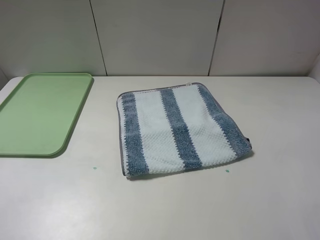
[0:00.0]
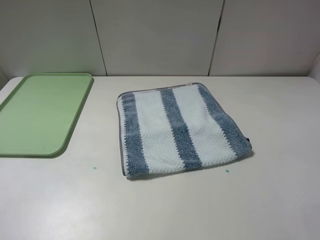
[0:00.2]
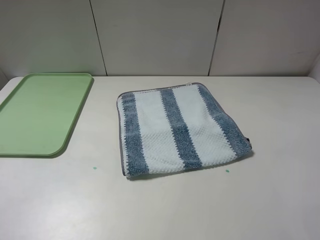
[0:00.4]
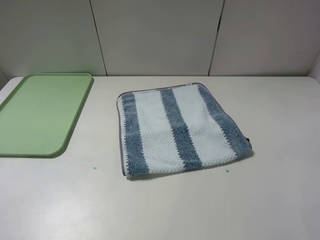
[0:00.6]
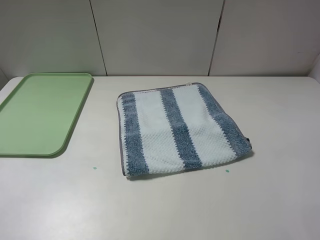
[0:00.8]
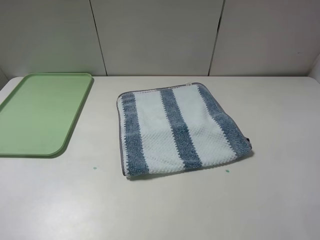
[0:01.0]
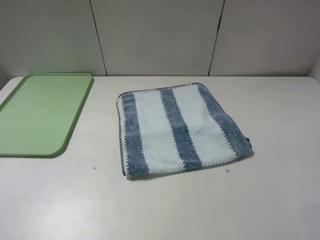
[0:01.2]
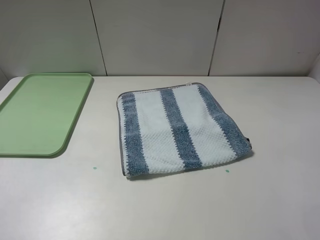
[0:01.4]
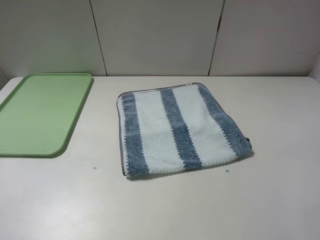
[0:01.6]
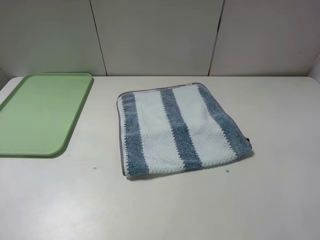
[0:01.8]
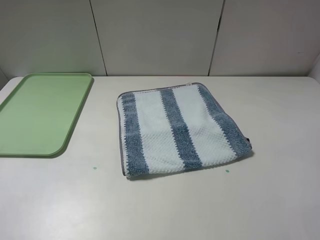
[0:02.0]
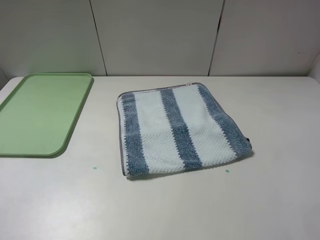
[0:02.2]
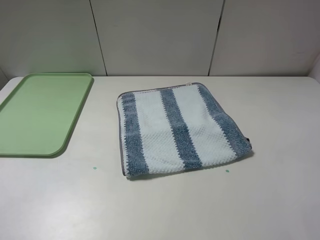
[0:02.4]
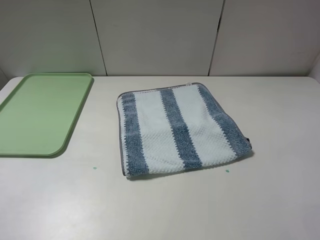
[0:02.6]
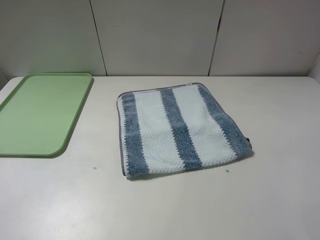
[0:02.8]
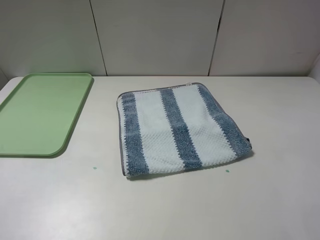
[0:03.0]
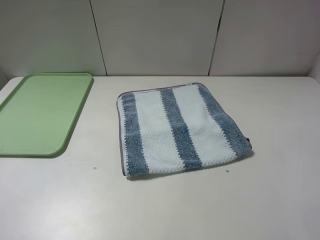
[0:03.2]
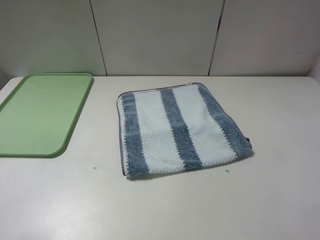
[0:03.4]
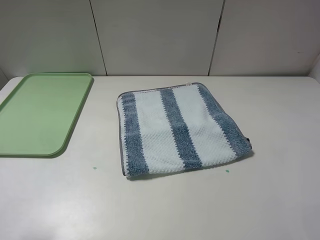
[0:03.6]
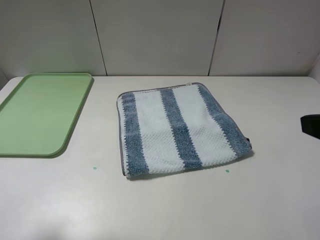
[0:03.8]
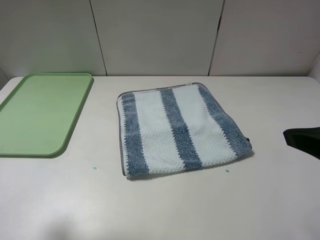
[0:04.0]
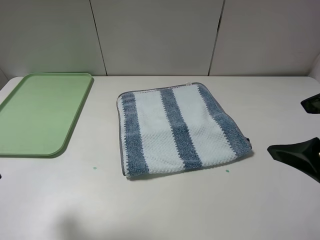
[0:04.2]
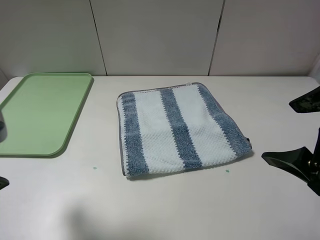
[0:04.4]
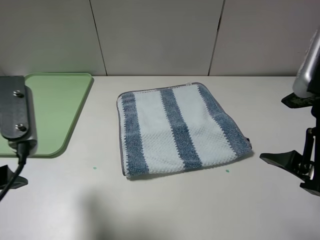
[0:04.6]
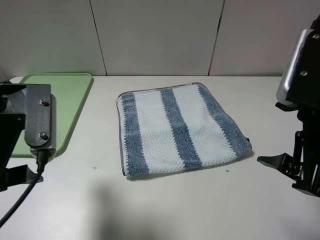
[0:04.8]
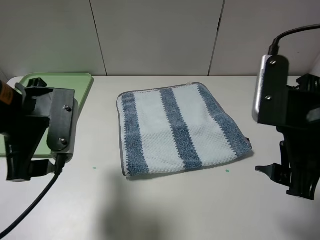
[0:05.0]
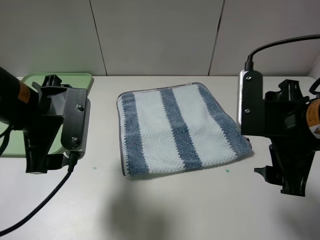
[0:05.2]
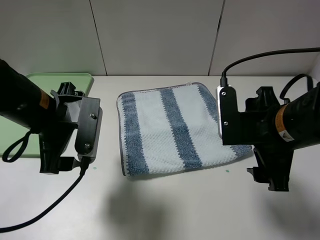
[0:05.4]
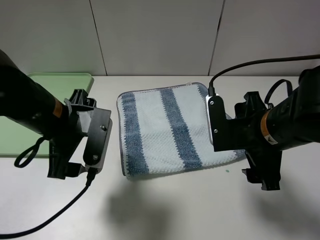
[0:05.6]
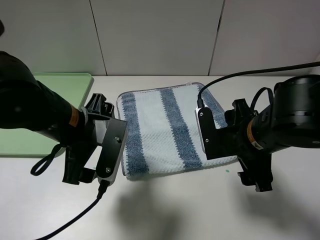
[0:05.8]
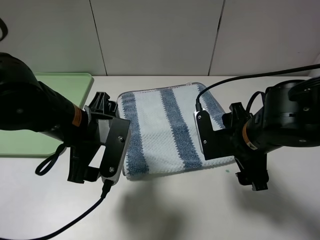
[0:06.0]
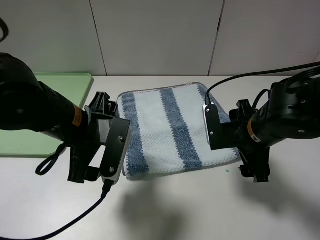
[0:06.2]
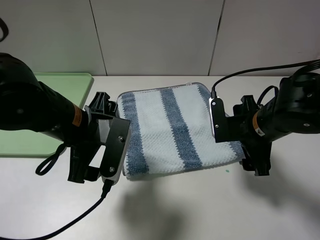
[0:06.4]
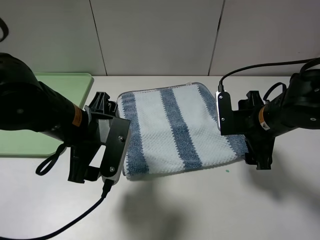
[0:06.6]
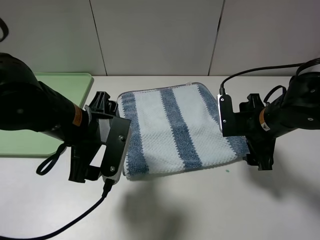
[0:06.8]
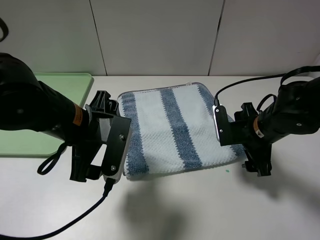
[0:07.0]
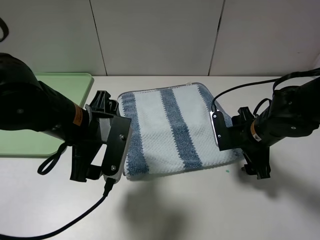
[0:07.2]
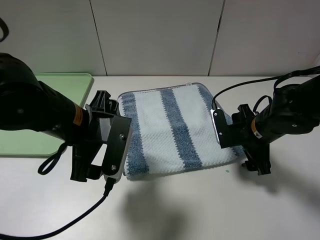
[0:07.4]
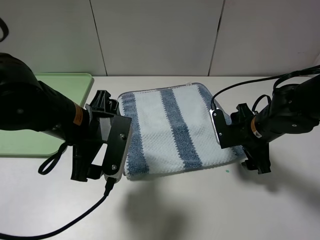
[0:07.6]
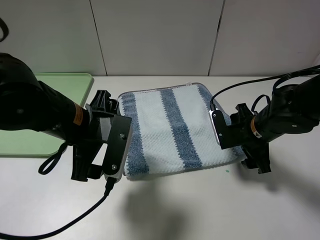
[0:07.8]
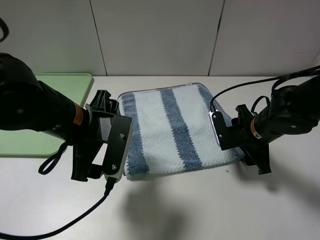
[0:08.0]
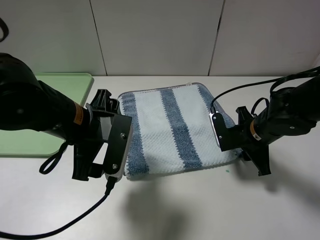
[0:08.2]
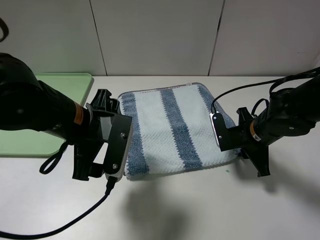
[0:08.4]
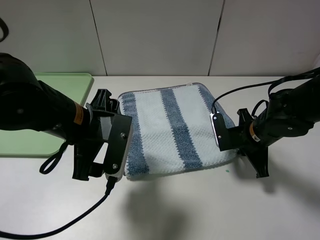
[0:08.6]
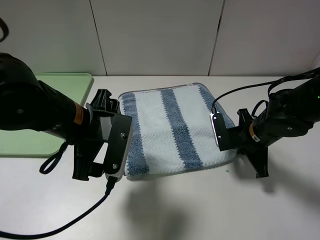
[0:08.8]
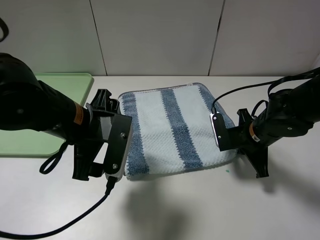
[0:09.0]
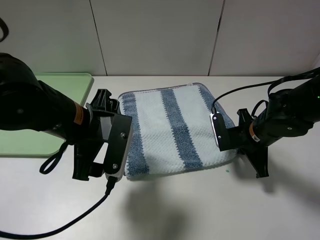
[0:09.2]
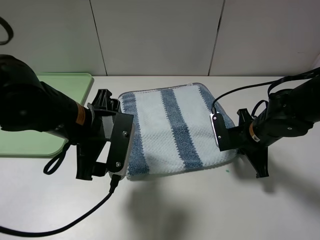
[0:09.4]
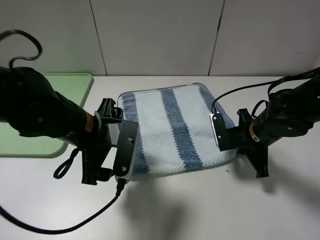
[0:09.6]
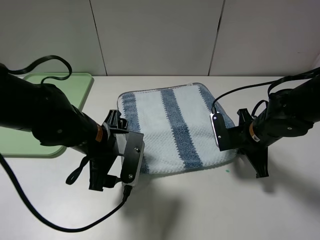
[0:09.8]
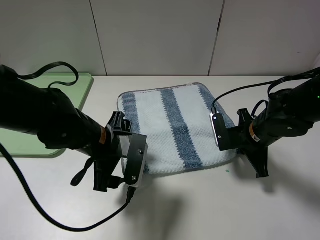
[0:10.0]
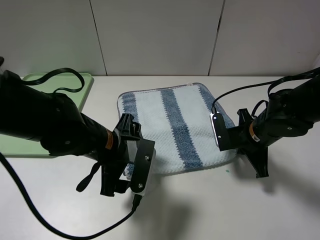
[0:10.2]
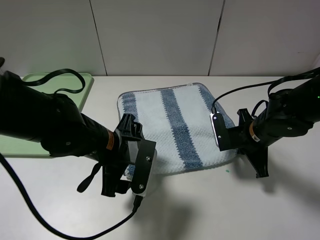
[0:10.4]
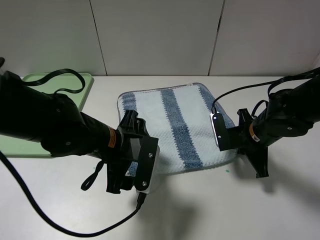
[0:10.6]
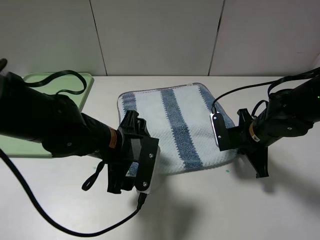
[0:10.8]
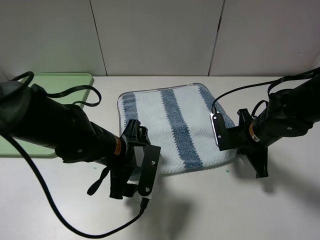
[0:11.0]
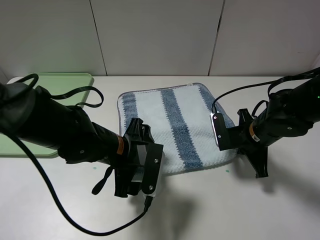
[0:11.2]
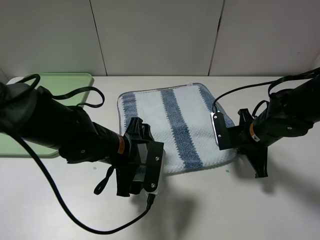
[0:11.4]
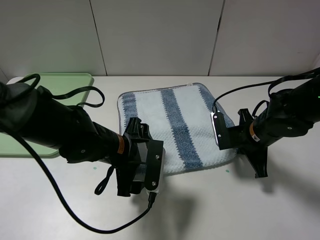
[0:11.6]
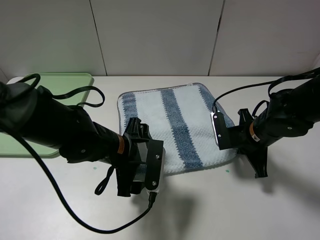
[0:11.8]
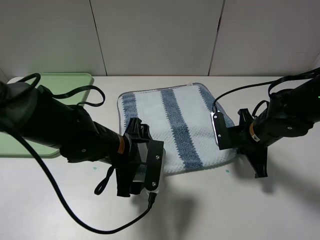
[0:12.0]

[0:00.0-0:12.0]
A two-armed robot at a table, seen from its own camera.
Step, 0:00.0 to 0:09.4: Grasp the blue white towel with the right gripper.
0:00.0 to 0:01.6: Both grippers stay put.
0:03.0 to 0:04.4: The left gripper travels forward and to the right by about 15 cm, while the right gripper is displaced forward and to the left by roughly 10 cm.
0:04.4 to 0:06.0: The left gripper heads to the right, downward and forward, covering roughly 15 cm; the right gripper travels downward, forward and to the left by about 15 cm.
0:06.0 to 0:07.6: The right gripper moves forward, downward and to the right, some 10 cm.
0:07.6 to 0:09.0: The right gripper closes.
0:09.0 to 0:10.4: The left gripper heads downward, covering roughly 5 cm.
0:10.4 to 0:12.0: There are only small adjustments of the grippers.

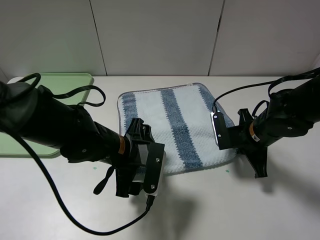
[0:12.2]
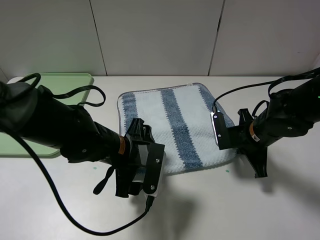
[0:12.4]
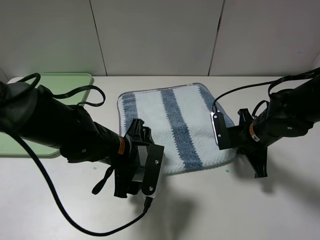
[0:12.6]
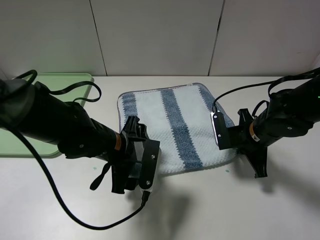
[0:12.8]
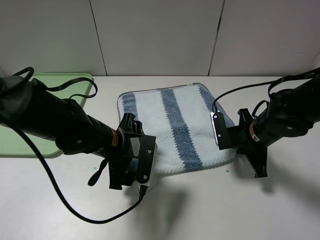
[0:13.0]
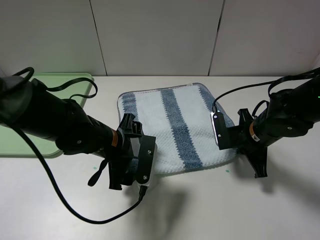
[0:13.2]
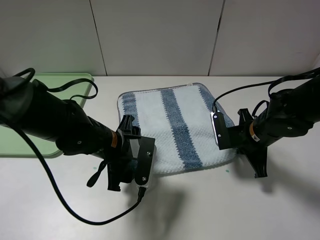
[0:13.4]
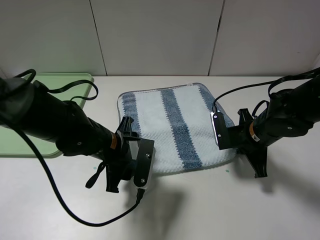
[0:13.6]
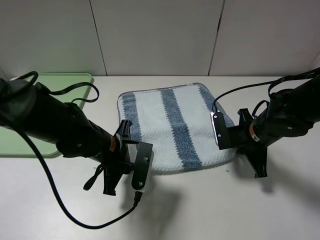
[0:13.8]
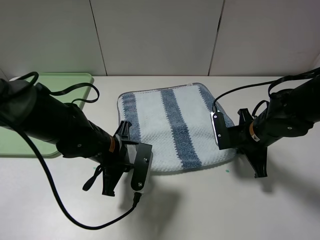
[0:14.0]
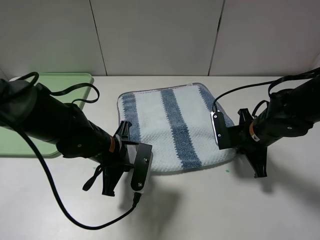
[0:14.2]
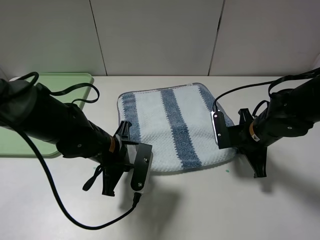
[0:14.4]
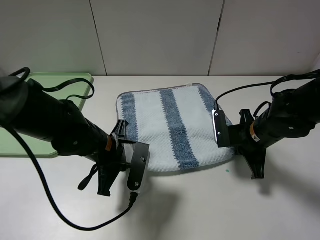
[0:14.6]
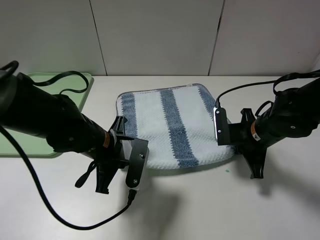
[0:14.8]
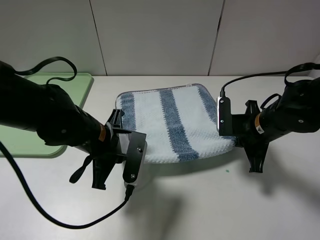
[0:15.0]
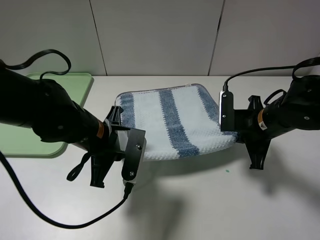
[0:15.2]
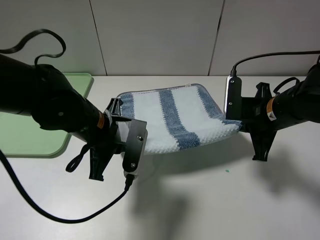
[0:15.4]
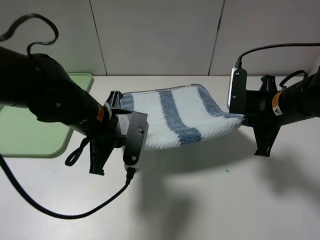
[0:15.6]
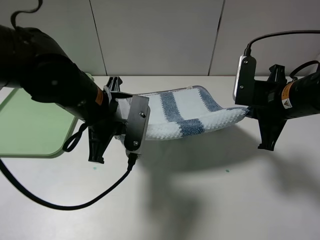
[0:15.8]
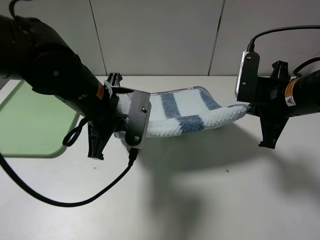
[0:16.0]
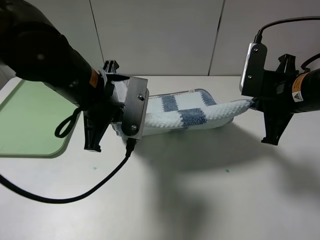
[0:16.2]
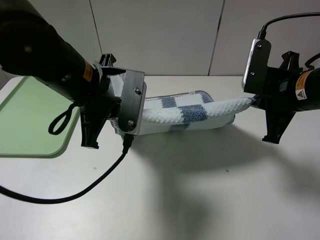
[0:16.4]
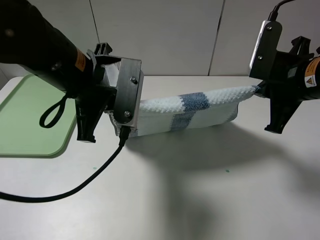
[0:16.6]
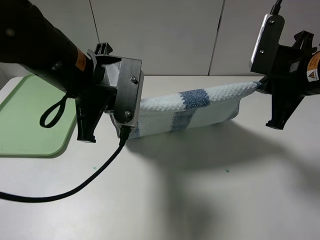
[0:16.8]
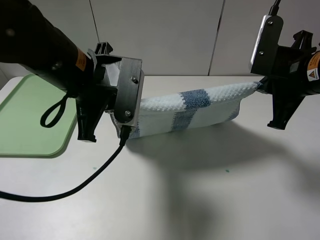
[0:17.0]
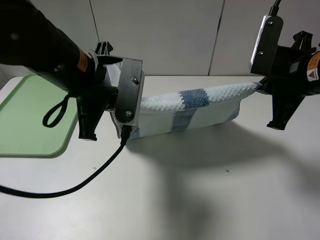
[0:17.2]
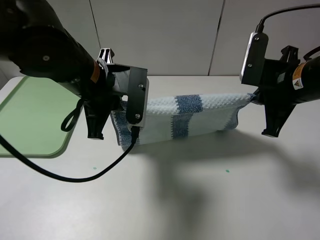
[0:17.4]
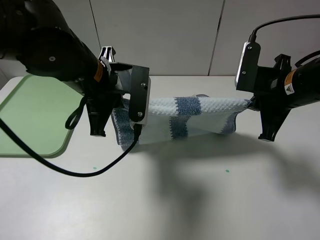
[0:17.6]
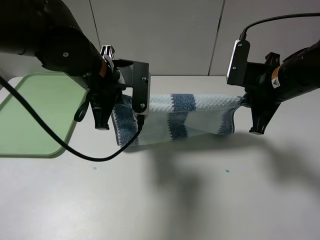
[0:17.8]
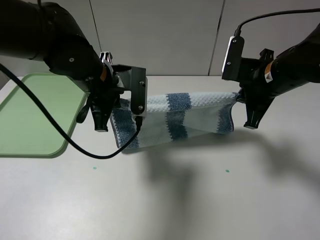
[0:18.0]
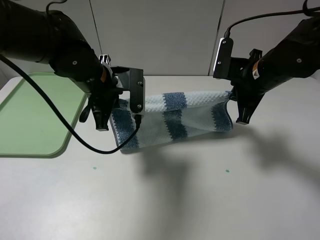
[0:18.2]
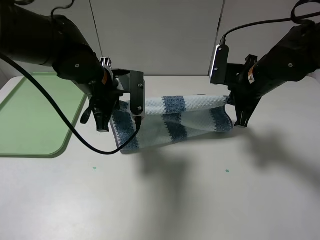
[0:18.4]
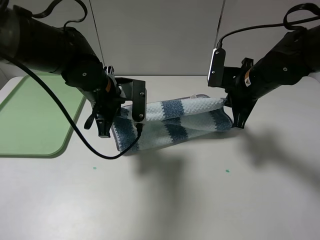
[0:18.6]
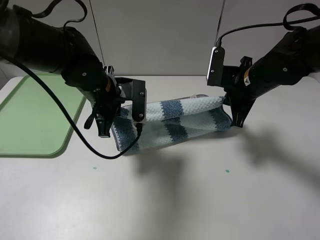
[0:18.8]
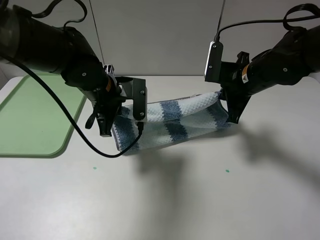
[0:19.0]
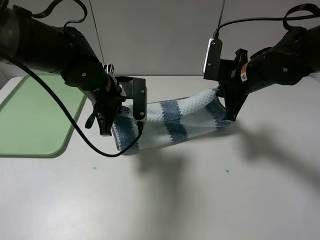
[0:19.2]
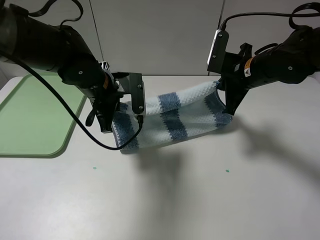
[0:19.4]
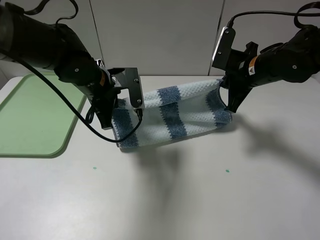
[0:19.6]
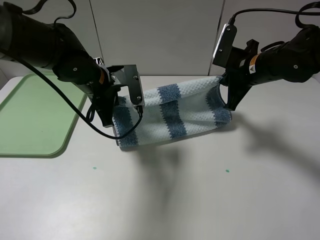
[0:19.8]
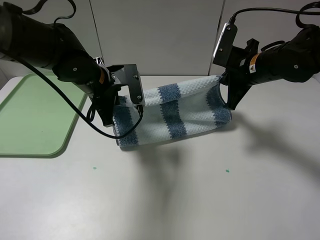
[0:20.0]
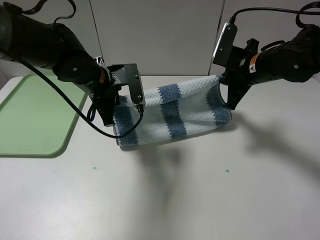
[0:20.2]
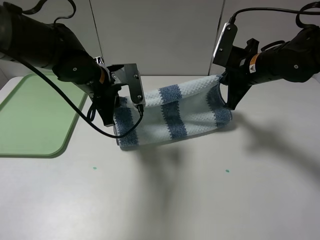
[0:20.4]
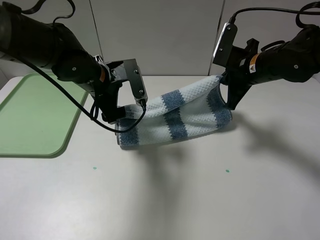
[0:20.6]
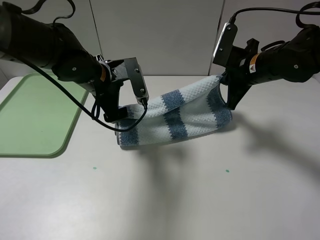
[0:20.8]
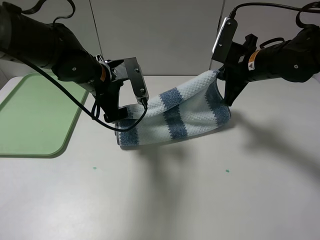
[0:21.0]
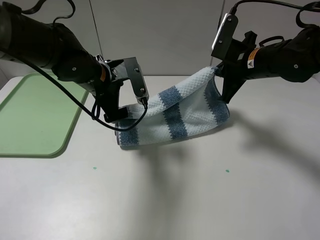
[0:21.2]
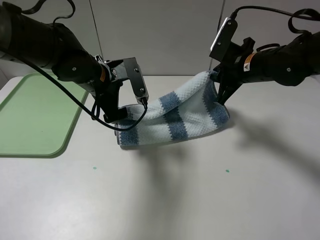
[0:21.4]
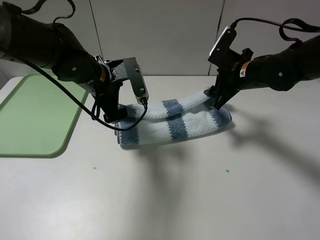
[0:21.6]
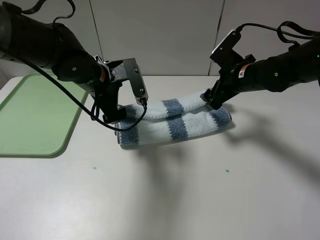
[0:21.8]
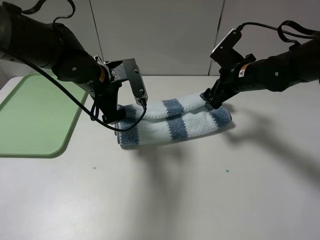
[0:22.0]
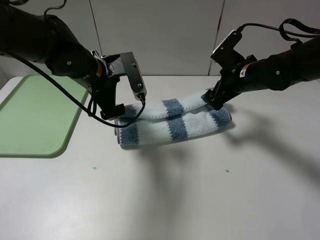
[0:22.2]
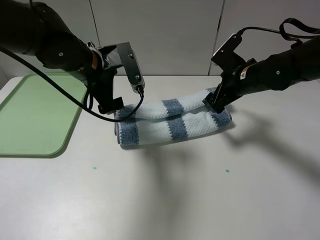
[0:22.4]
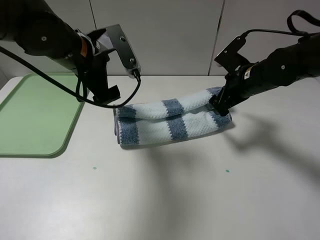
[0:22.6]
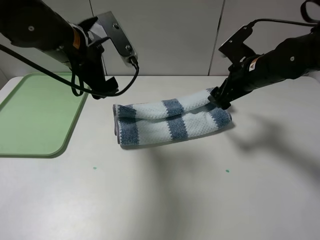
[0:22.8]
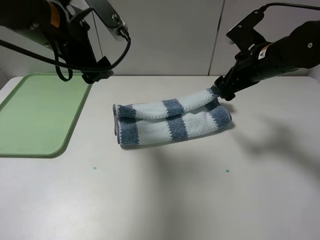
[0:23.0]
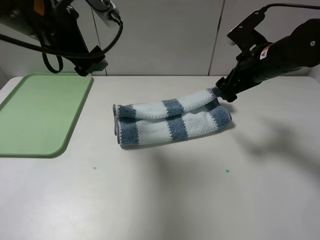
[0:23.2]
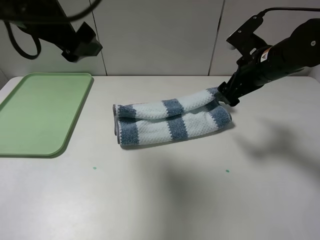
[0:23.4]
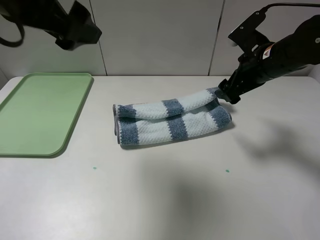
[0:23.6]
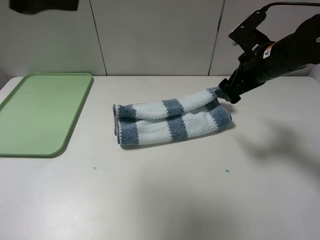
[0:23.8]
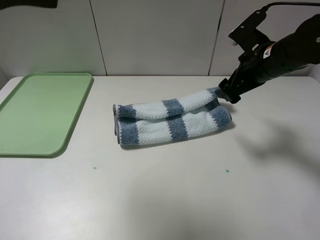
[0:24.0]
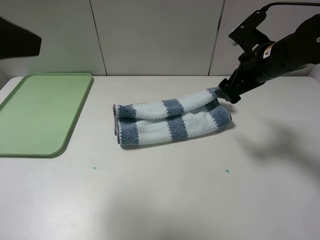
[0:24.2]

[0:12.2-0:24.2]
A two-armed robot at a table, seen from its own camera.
Step, 0:12.2 to 0:14.4: Grasp the blue white towel with the left gripper.
Step, 0:14.6 to 0:22.4: Fold the blue white towel upwards with the left gripper.
0:12.2 to 0:13.8: The left gripper closes.
0:13.8 to 0:15.2: The left gripper heads upward, covering roughly 5 cm.
0:15.2 to 0:16.6: Both grippers travel together upward, roughly 10 cm.
0:16.6 to 0:18.2: The right gripper is displaced forward by roughly 5 cm. Meanwhile the left gripper is displaced forward and downward by approximately 10 cm.
0:18.2 to 0:19.8: The grippers make only small movements.
0:19.8 to 0:21.2: The left gripper opens.
0:21.2 to 0:22.6: The left gripper heads upward, covering roughly 5 cm, while the right gripper opens up.
0:22.6 to 0:24.2: The right gripper travels upward by roughly 5 cm. Meanwhile the left gripper travels backward, upward and to the left by some 25 cm.
